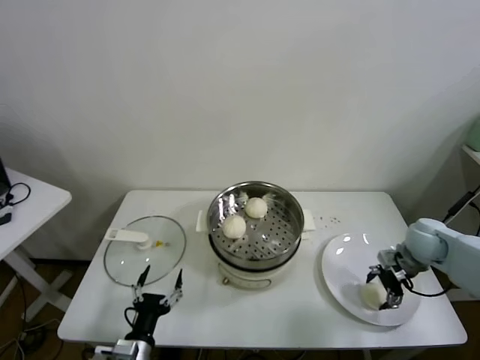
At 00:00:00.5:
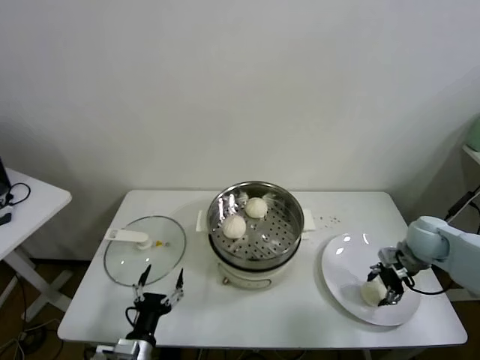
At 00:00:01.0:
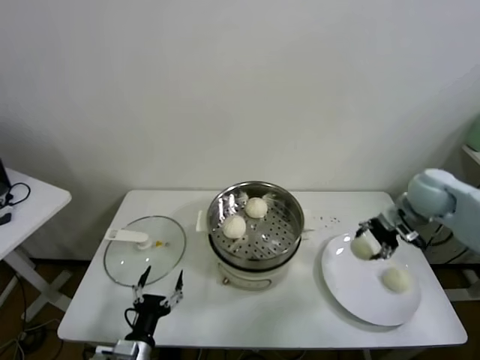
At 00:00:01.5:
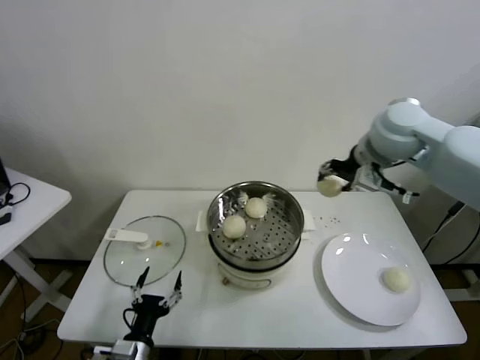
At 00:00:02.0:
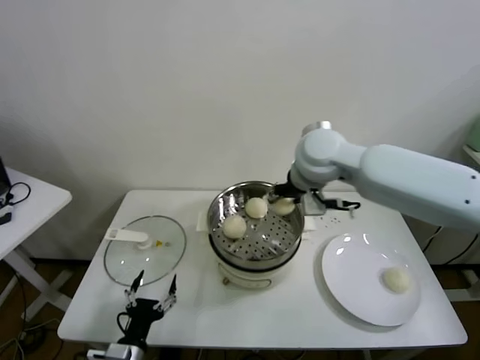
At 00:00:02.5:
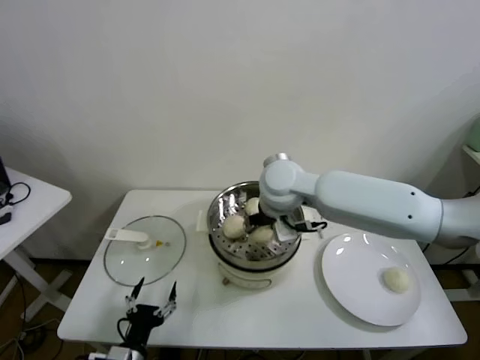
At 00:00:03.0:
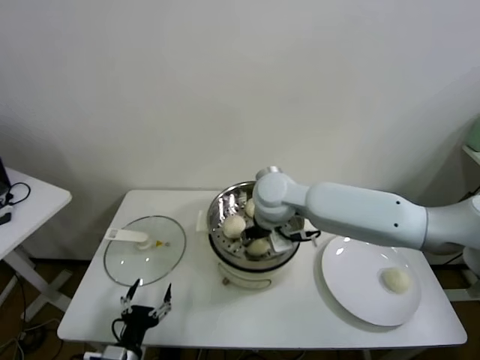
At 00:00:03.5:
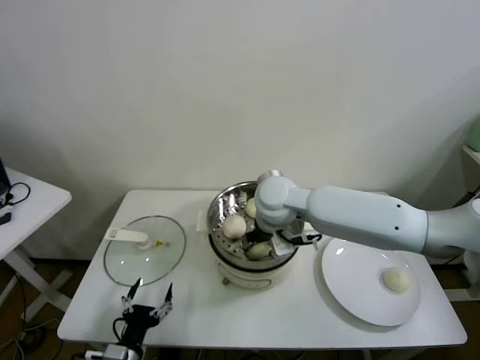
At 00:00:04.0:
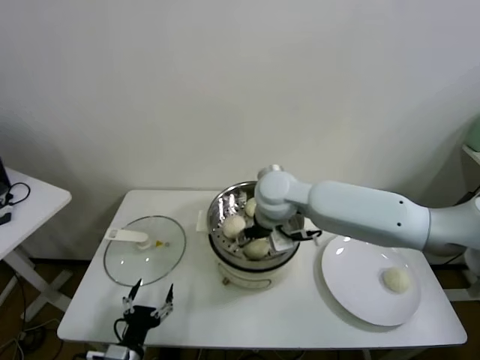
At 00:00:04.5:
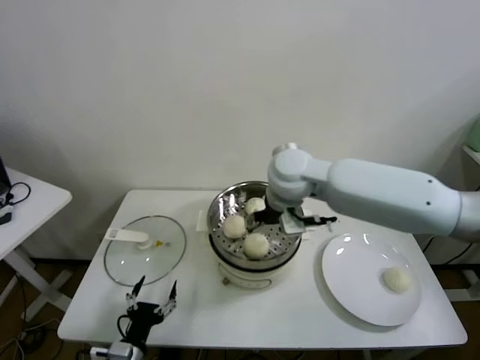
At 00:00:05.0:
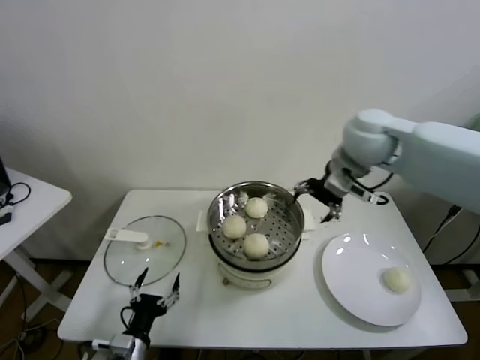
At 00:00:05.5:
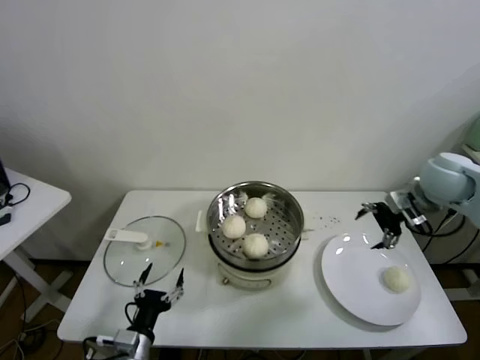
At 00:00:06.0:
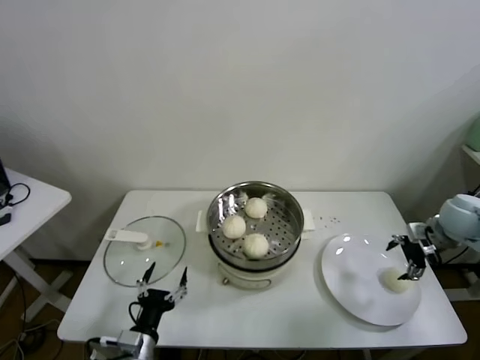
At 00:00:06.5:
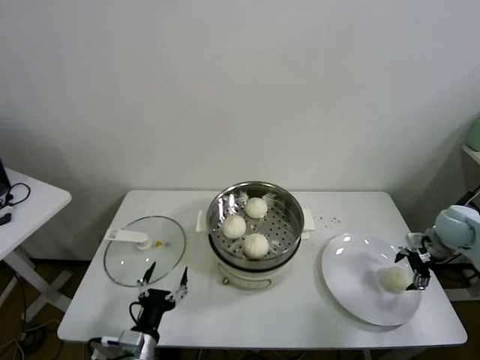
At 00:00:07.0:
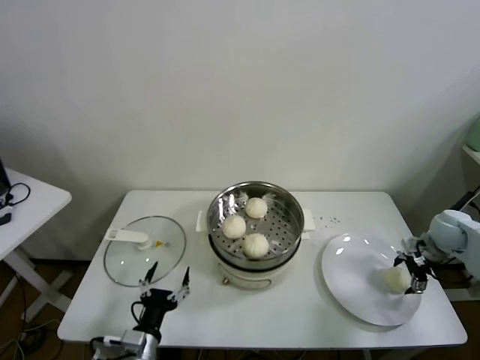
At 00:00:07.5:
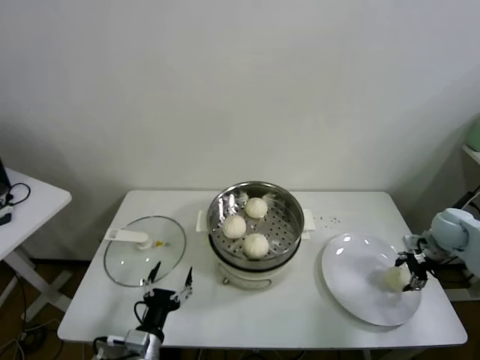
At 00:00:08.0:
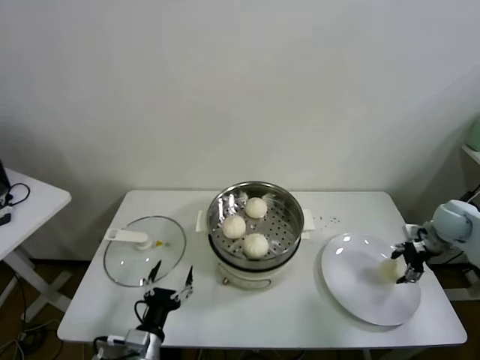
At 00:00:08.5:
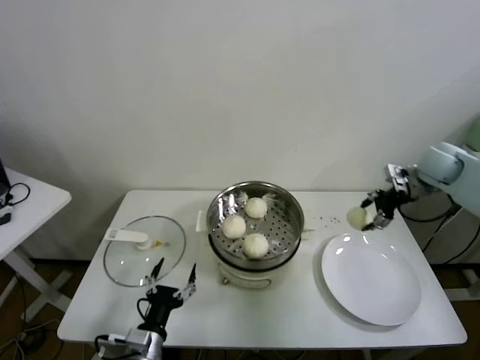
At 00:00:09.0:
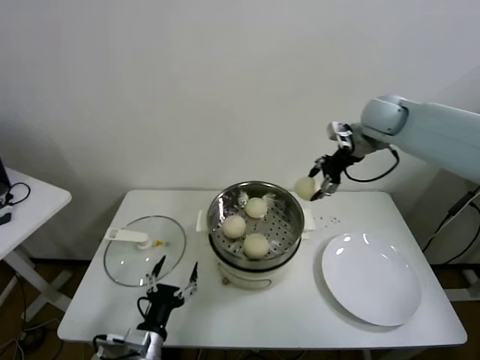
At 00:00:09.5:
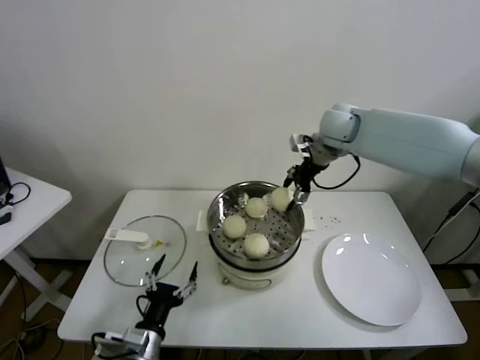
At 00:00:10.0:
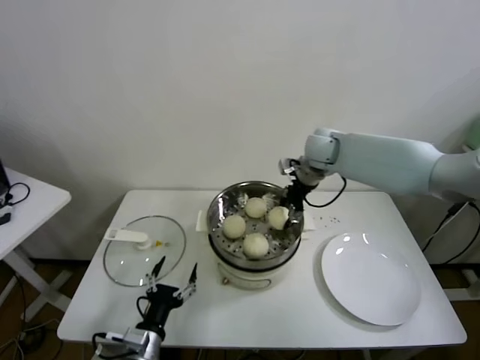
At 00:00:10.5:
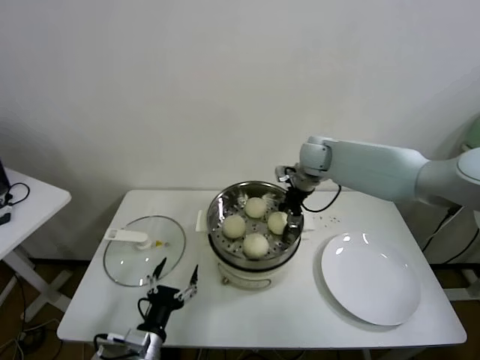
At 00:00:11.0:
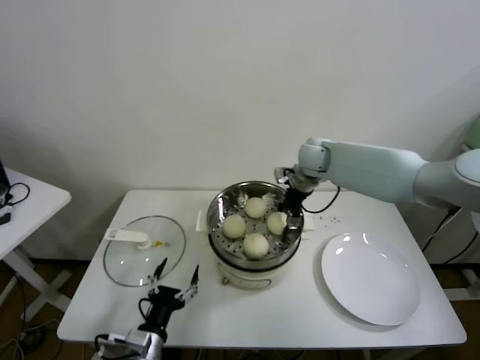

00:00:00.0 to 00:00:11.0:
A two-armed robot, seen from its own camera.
Task of the whole recording: take steamed baozi put them in steamer.
Step, 00:00:00.5 to 00:00:03.5: Place the baozi on the steamer with right gripper.
Step, 00:00:04.0 to 00:00:07.0: Grasp the baozi in the plate with right gripper.
00:00:00.0 to 00:00:02.0: The right gripper travels to the left and upward by approximately 40 cm, and closes.
00:00:02.0 to 00:00:03.5: The right gripper goes about 10 cm downward and to the left.
00:00:03.5 to 00:00:05.5: The right gripper travels to the right by some 35 cm, and opens.
00:00:05.5 to 00:00:07.5: The right gripper goes approximately 20 cm downward and to the right, and closes.
00:00:07.5 to 00:00:09.0: The right gripper travels upward, to the left and forward by some 35 cm.
00:00:09.0 to 00:00:11.0: The right gripper travels to the left and downward by approximately 20 cm.

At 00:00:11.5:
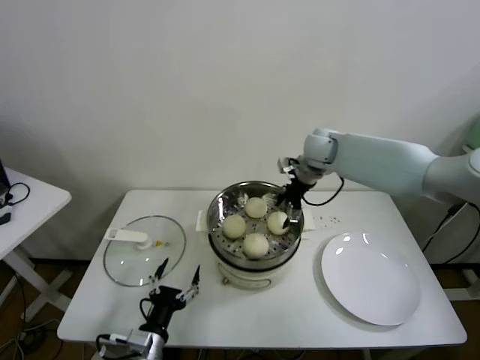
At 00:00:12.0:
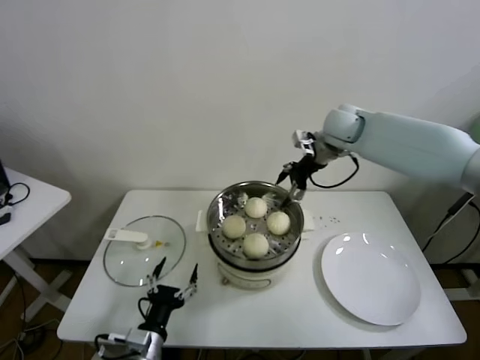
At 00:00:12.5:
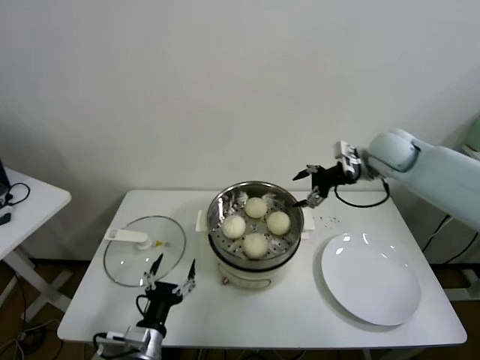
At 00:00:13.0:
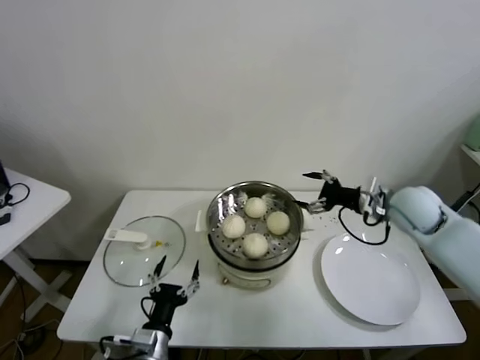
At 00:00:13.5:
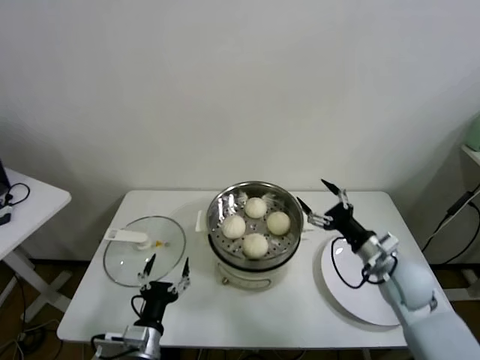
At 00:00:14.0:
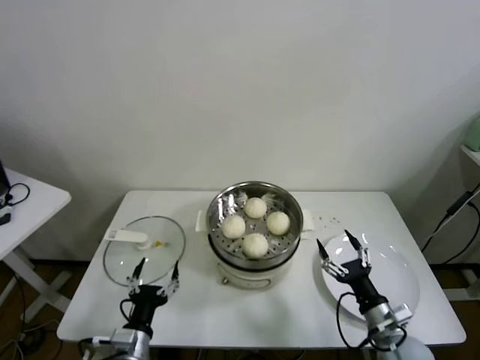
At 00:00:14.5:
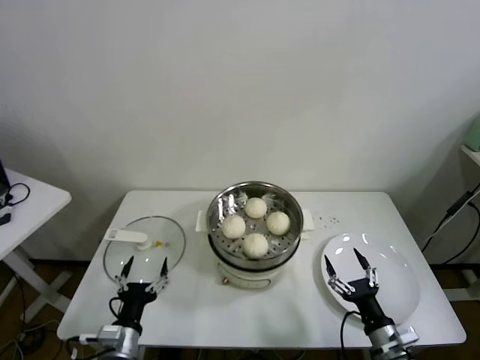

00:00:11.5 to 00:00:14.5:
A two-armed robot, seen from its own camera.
Task of the whole recording: take steamed baozi put them in steamer.
00:00:11.5 to 00:00:13.0: The right gripper shifts approximately 20 cm to the right and backward.
00:00:13.0 to 00:00:14.5: The right gripper shifts roughly 35 cm backward and downward. The left gripper moves to the left, approximately 5 cm.
